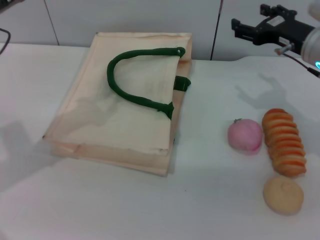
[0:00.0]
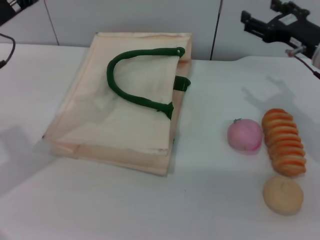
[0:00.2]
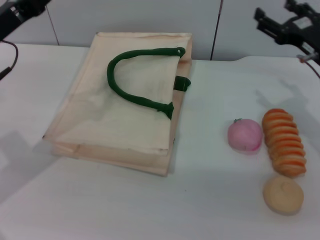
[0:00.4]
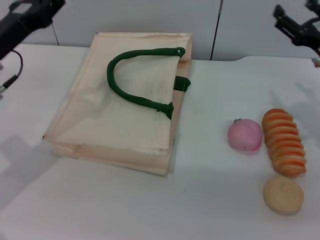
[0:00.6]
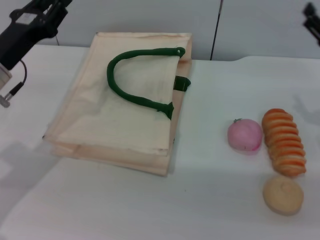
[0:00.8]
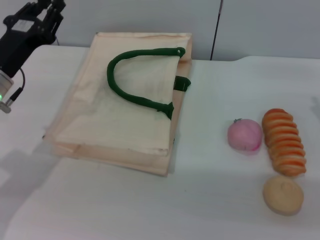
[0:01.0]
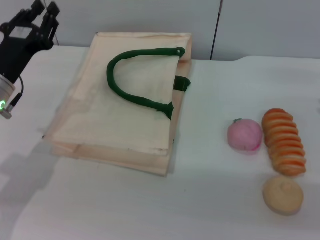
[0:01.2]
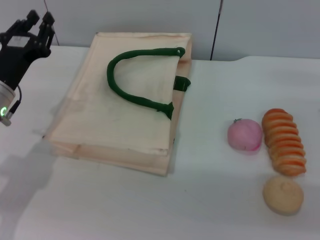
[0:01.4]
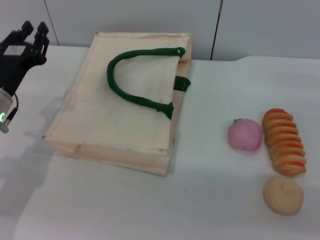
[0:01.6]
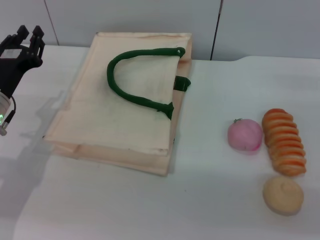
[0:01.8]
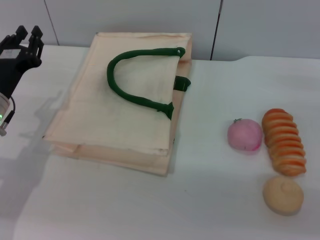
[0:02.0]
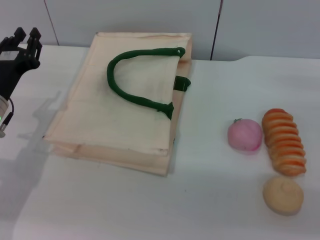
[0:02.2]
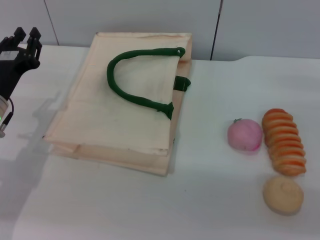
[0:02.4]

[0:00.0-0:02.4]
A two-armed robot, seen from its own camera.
Task of the whole recording: pick up the orange from the table and place it in the white handbag.
Step, 0:00.0 to 0:01.0: Lower the woven bag with the left gripper to close it.
0:00.0 to 0:01.2: The left gripper travels downward by approximately 10 cm. The right gripper travels to the right, backward and downward by some 15 cm.
0:01.2 to 0:02.4: The grippers make only small movements.

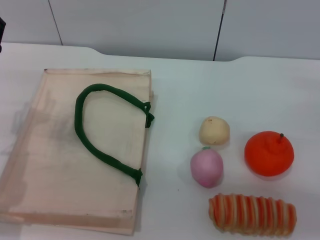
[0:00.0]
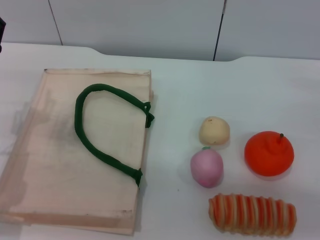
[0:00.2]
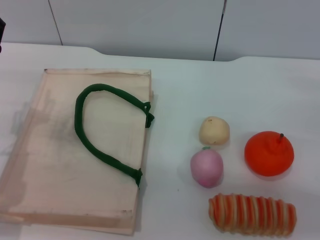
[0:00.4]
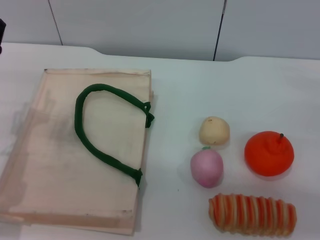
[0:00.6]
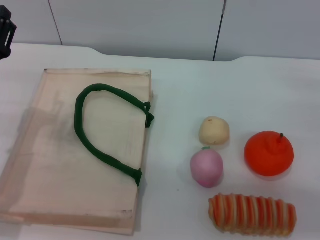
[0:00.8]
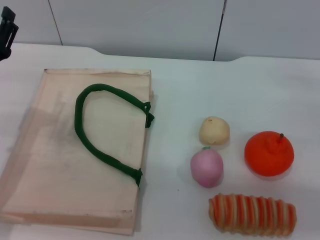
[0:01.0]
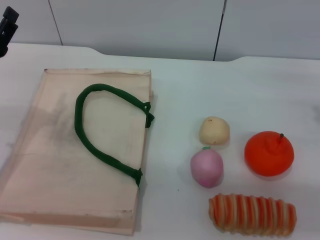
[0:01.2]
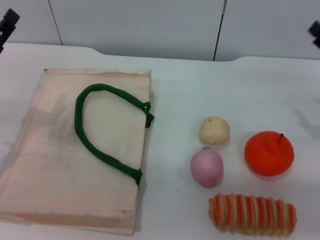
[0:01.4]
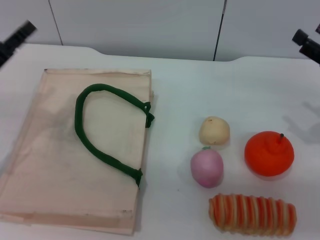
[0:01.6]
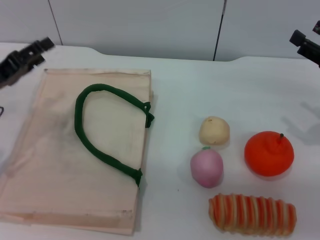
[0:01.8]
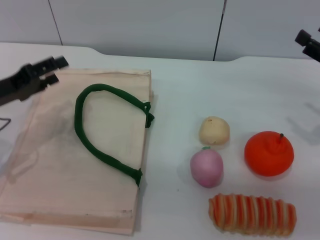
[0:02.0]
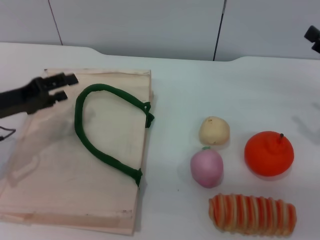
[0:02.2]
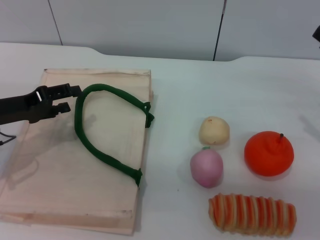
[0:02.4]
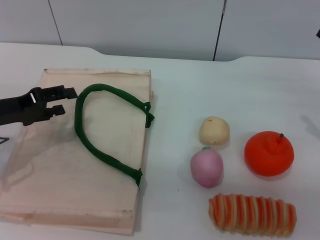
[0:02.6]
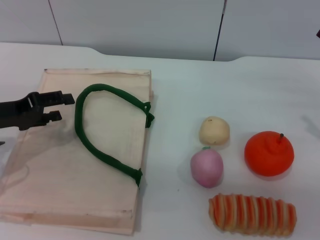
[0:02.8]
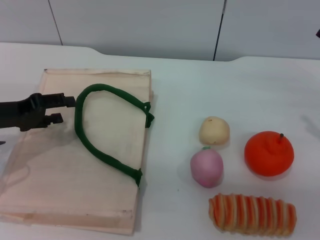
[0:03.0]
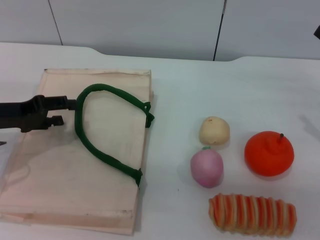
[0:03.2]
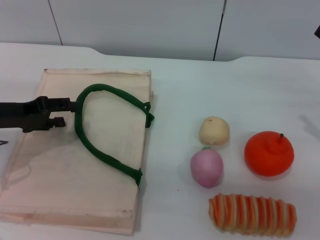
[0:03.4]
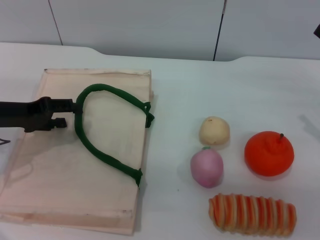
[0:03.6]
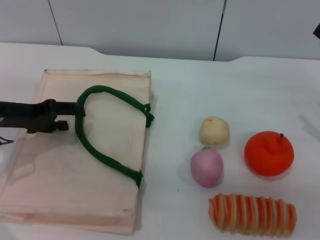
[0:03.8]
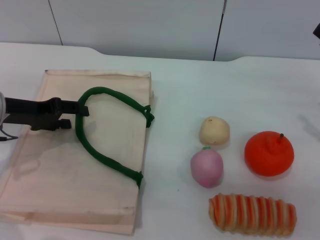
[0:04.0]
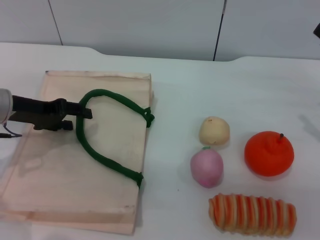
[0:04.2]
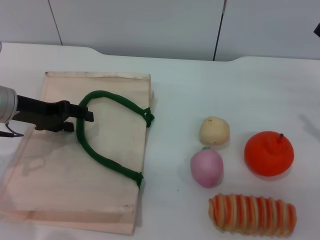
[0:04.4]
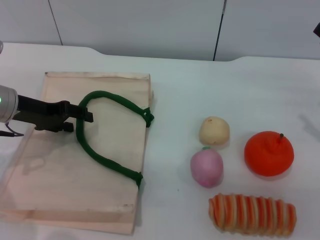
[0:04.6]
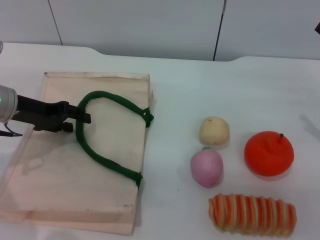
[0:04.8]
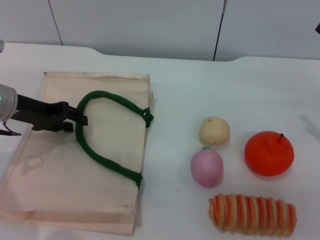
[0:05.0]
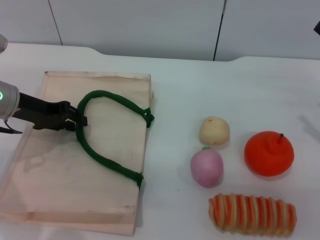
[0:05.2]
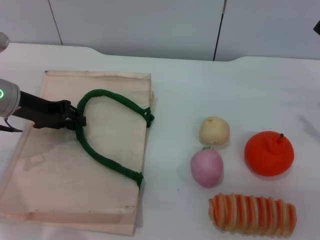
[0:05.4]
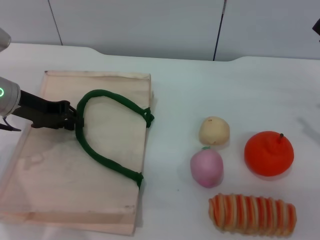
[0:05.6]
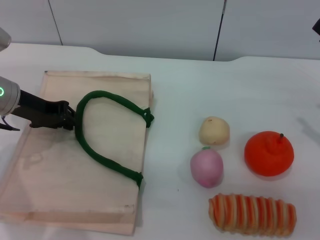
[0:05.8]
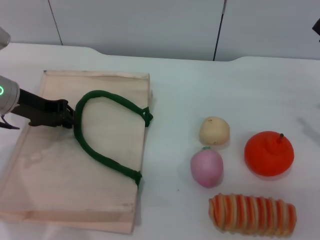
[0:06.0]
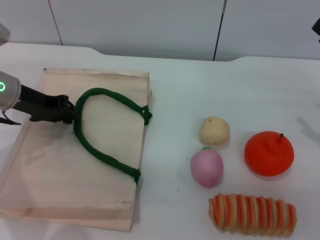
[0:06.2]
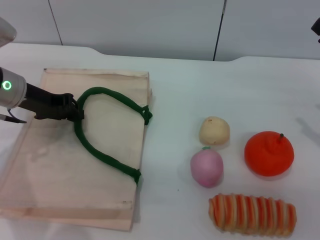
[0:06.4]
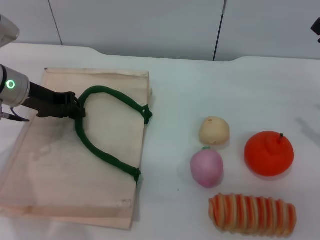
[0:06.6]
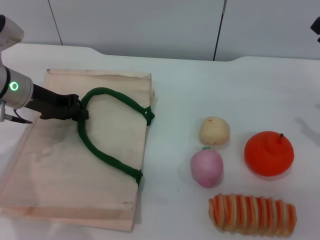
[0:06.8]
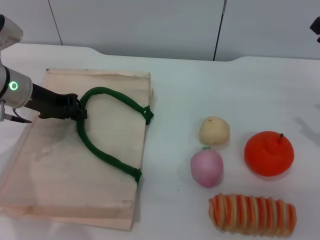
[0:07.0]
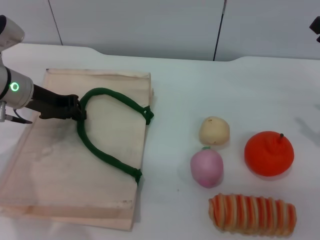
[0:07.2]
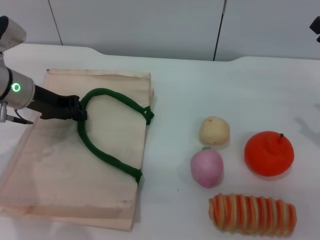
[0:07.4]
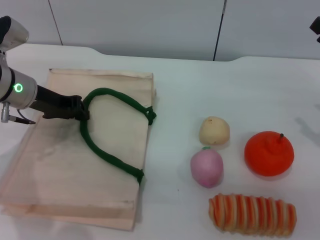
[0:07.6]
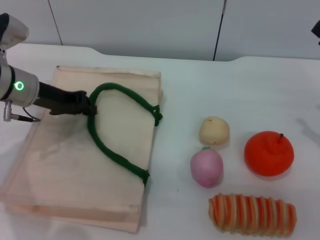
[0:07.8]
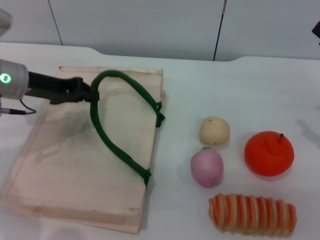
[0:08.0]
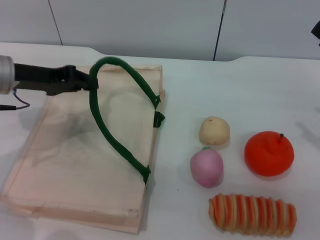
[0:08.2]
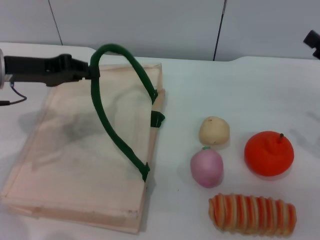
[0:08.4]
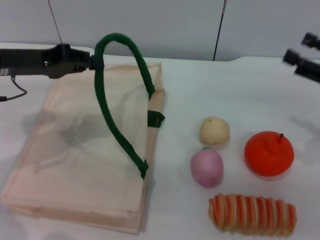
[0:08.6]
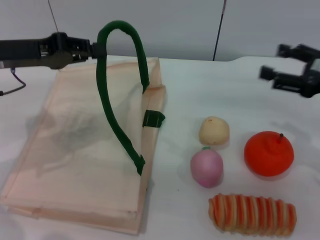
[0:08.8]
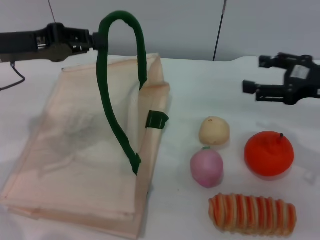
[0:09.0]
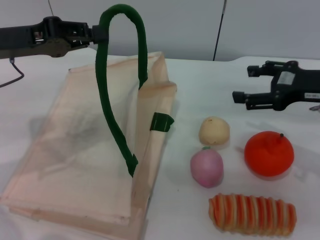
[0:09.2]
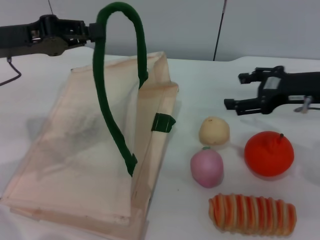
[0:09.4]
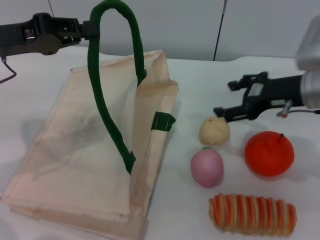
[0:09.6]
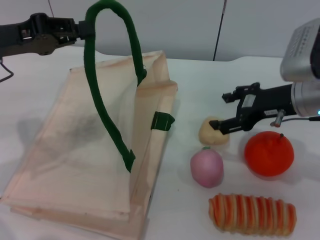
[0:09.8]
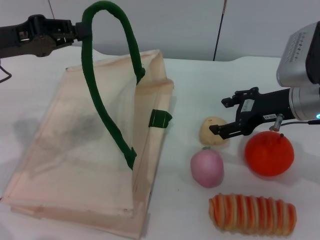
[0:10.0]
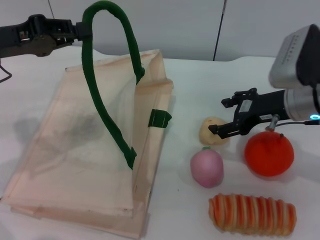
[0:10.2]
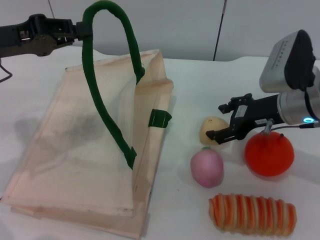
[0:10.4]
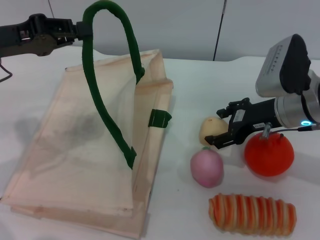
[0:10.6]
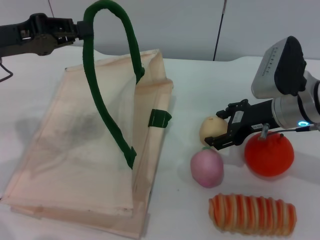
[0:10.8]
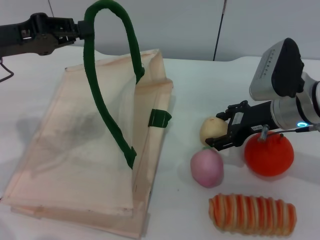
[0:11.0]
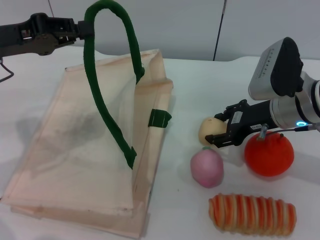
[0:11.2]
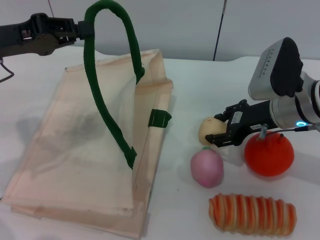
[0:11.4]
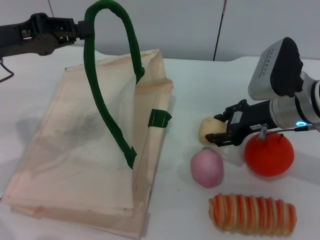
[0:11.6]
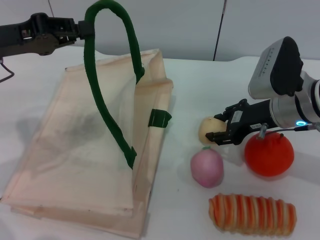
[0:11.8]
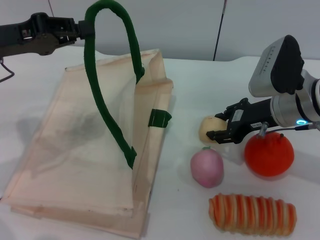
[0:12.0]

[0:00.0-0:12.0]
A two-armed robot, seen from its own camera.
Task of the whole recording: pick up the egg yolk pastry from the table and place it in the white handbag.
Step, 0:00.0 to 0:08.0: Lift the woven bag with the left gripper to open it.
0:00.0 to 0:01.6: The right gripper moves about 5 cm. Meanwhile the left gripper moves about 5 cm.
0:03.0 to 0:04.4: The left gripper moves forward, approximately 5 cm.
0:04.4 to 0:06.0: The left gripper closes.
0:06.0 to 0:07.6: There are only small adjustments of the grippers.
0:07.6 to 0:09.0: The right gripper moves to the left, roughly 5 cm; the left gripper shifts approximately 10 cm upward and backward.
0:09.0 to 0:10.4: The right gripper moves to the left, about 10 cm.
0:10.4 to 0:12.0: The right gripper closes up.

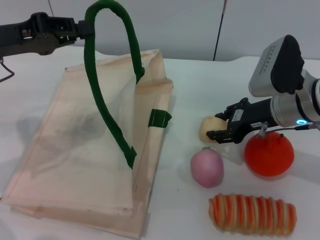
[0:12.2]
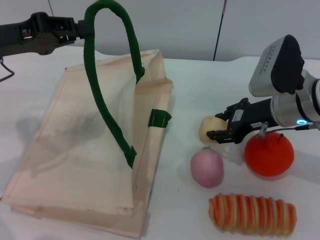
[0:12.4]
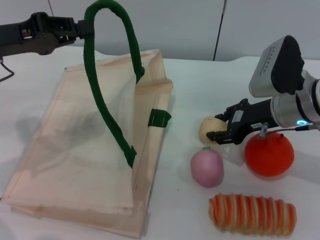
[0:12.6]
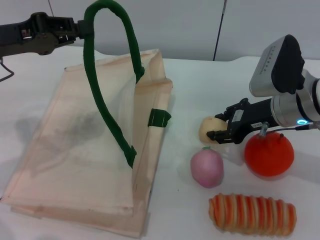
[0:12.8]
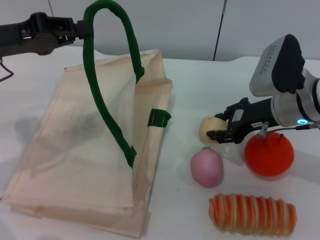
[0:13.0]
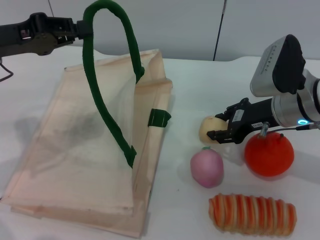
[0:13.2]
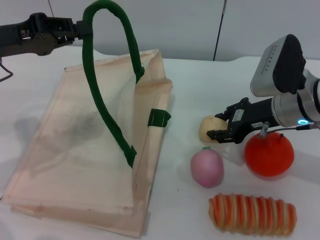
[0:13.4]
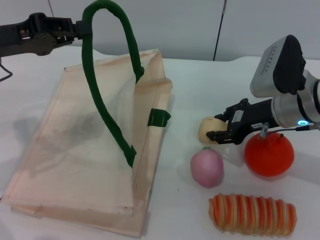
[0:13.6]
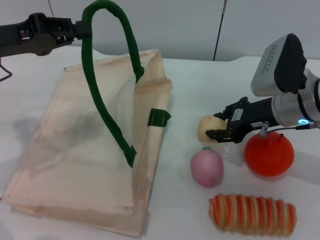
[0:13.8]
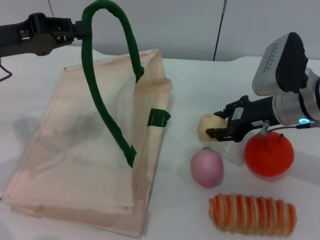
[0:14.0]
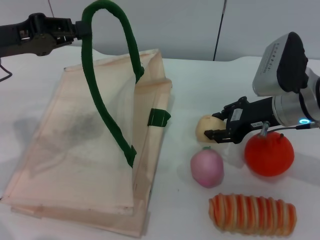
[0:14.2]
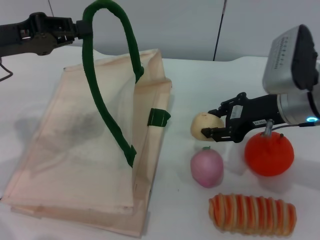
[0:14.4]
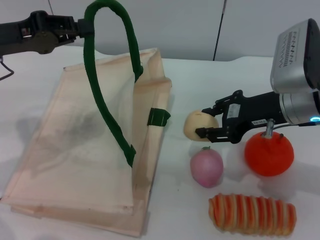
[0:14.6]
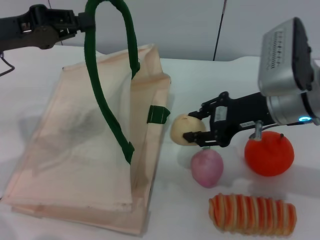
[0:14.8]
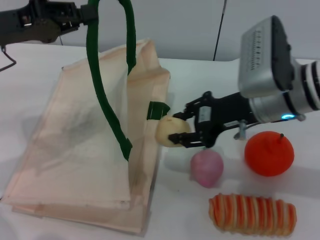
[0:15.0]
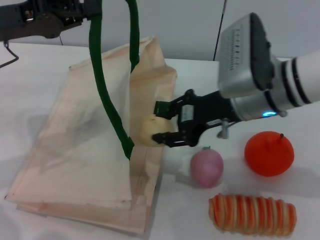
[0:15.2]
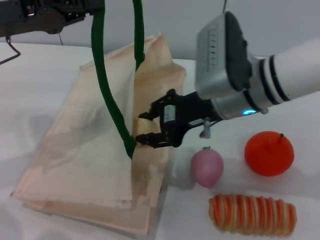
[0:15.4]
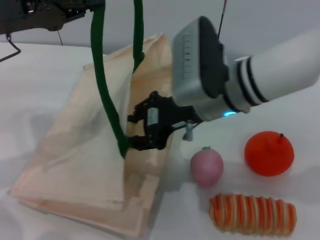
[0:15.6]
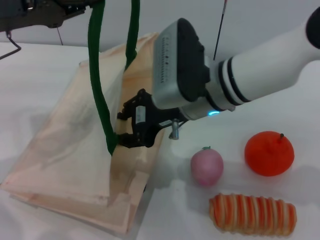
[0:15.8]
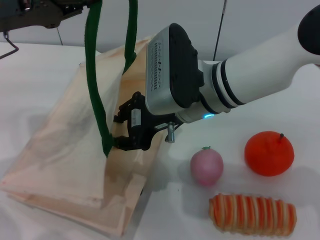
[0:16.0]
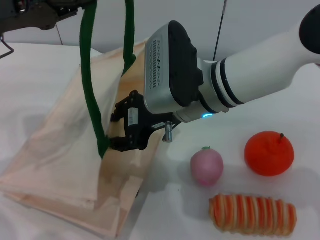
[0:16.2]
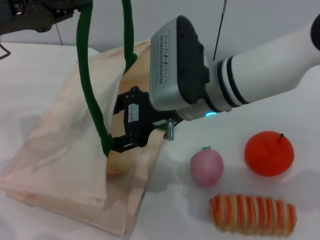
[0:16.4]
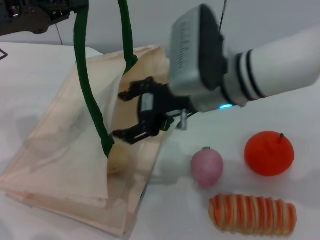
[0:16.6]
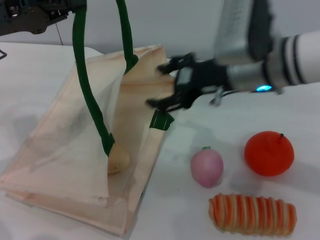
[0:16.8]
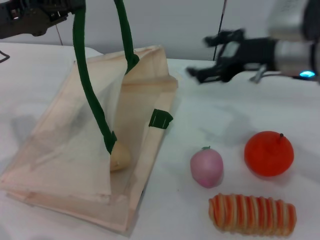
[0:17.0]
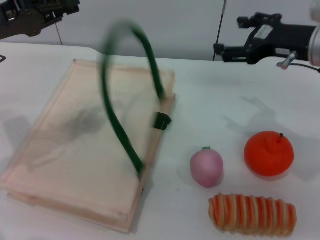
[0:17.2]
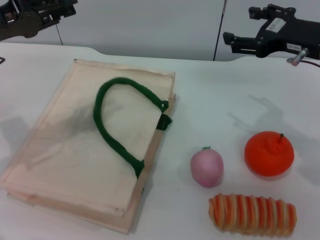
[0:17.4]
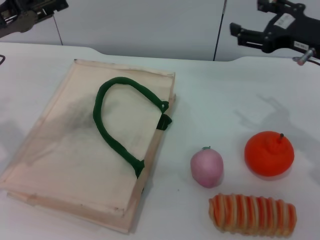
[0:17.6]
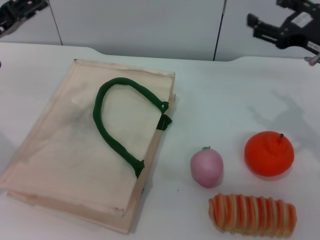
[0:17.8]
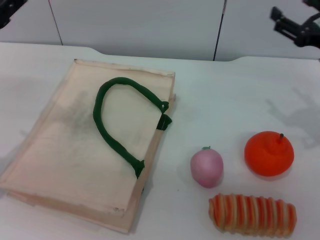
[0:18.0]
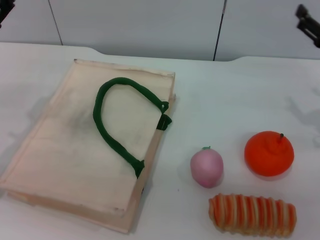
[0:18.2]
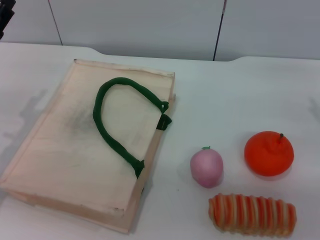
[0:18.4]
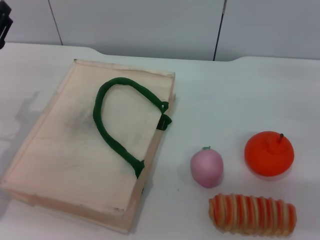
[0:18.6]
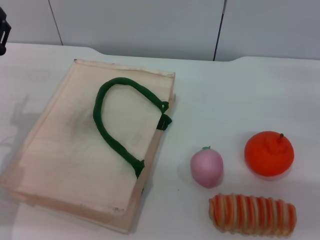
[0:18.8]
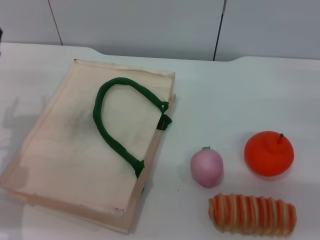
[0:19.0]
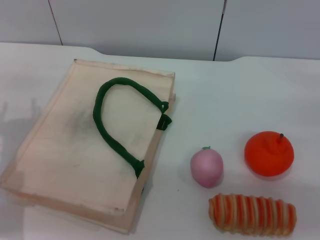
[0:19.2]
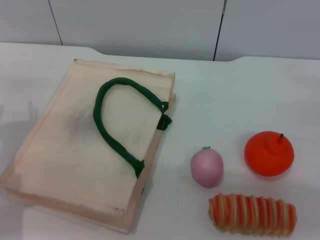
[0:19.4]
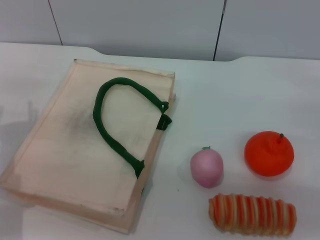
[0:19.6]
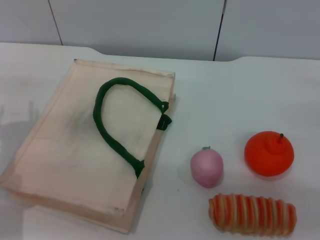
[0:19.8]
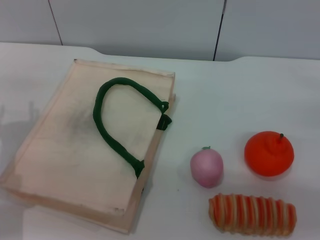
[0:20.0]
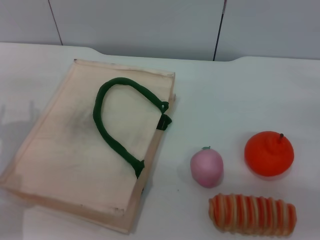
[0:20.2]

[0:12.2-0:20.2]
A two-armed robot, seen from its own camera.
Task of the whole recording: pick up the egg yolk pastry from the table and place it in the white handbag.
Step, 0:12.2 to 0:14.6: Pick up the egg yolk pastry with the right gripper.
Step, 0:14.8 to 0:16.6: Place the egg yolk pastry into the woven bag with the right gripper.
Step, 0:16.8 to 0:17.8: Lower the woven bag with the left gripper to close it.
0:12.2 to 0:13.8: Neither gripper changes place.
0:13.8 to 0:15.4: The right gripper travels to the left and upward by roughly 10 cm.
0:15.4 to 0:17.0: The right gripper goes roughly 10 cm to the right, and opens its fingers.
0:17.0 to 0:18.6: The left gripper heads downward, covering roughly 10 cm, and opens up. Meanwhile the right gripper goes roughly 20 cm to the right and downward.
